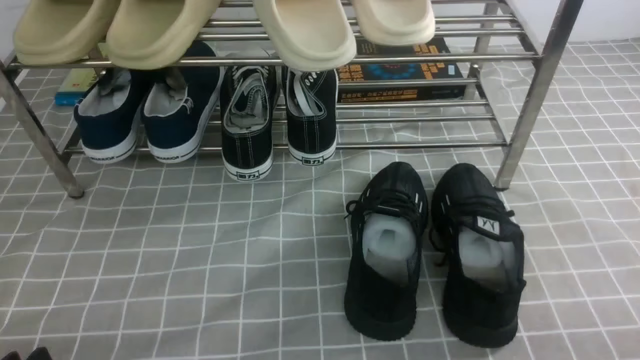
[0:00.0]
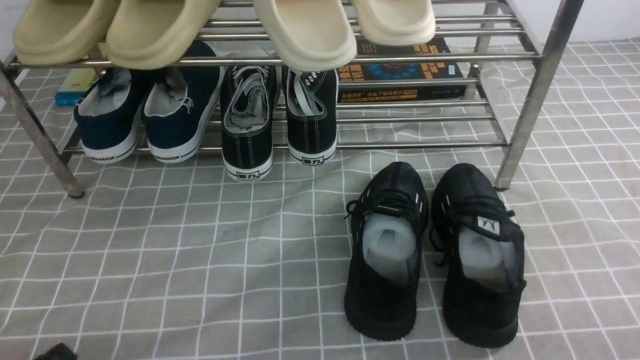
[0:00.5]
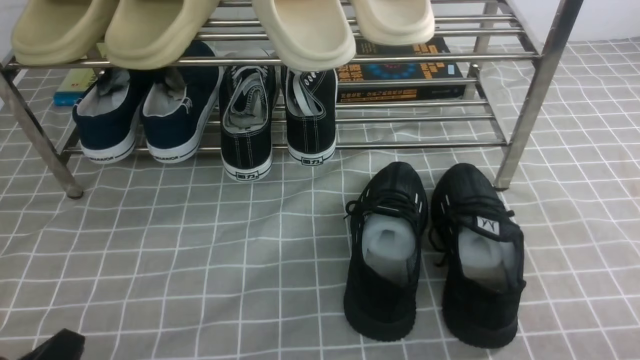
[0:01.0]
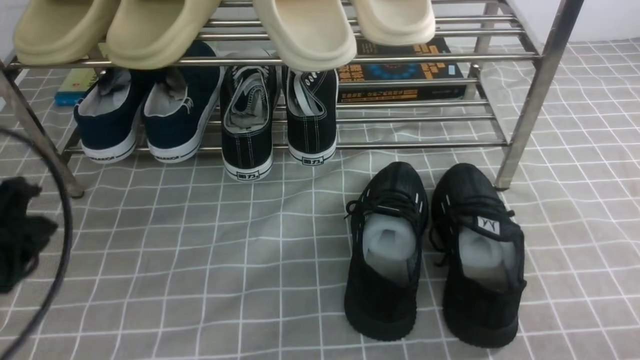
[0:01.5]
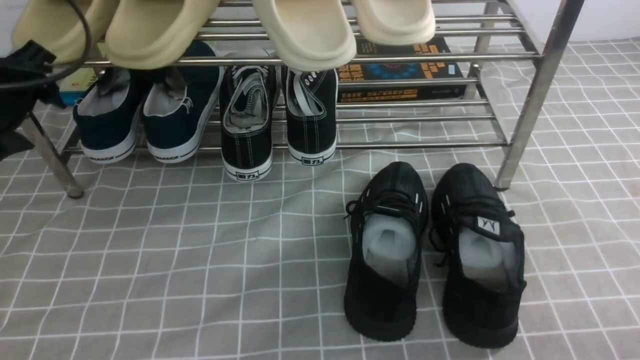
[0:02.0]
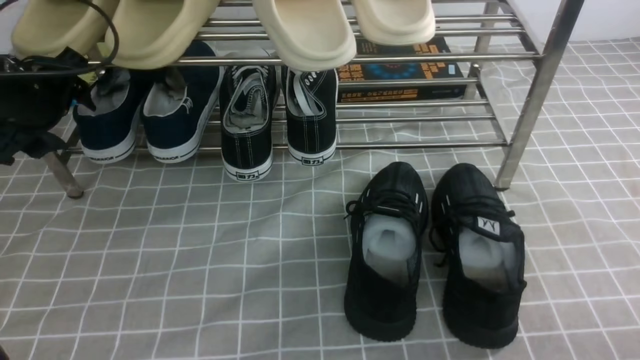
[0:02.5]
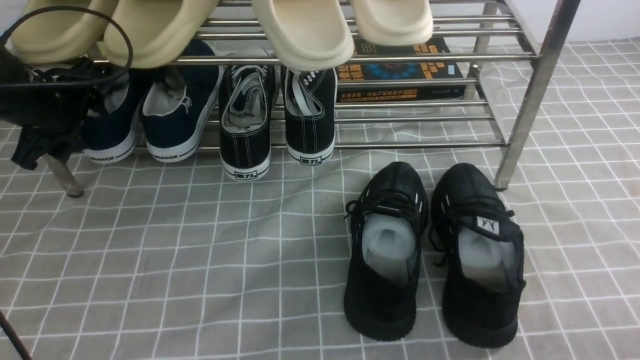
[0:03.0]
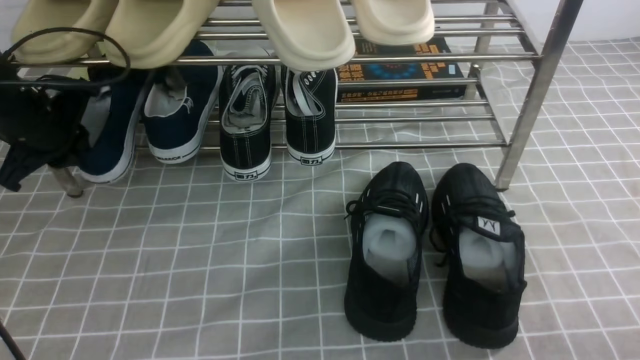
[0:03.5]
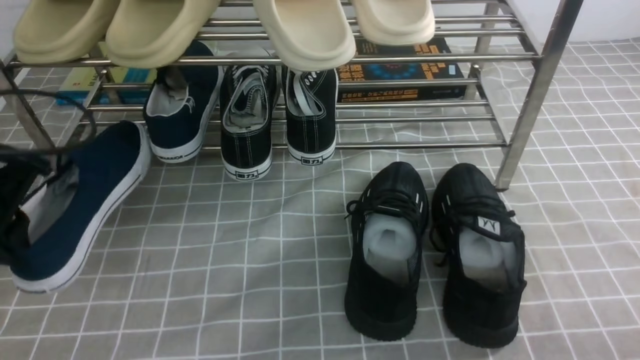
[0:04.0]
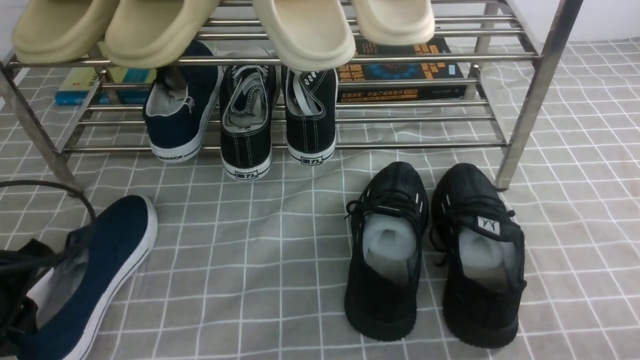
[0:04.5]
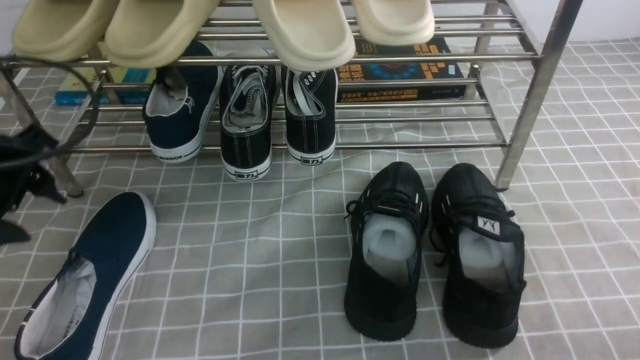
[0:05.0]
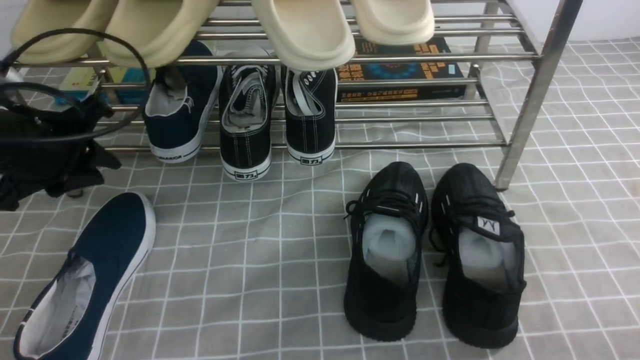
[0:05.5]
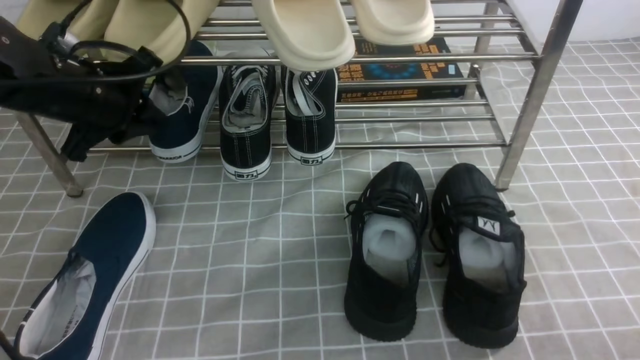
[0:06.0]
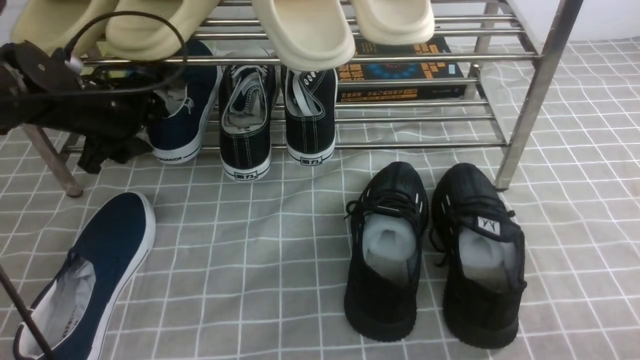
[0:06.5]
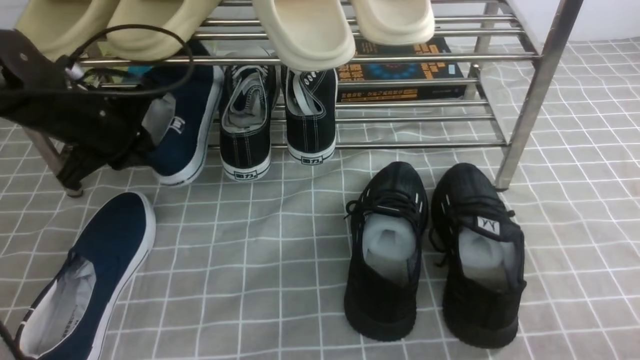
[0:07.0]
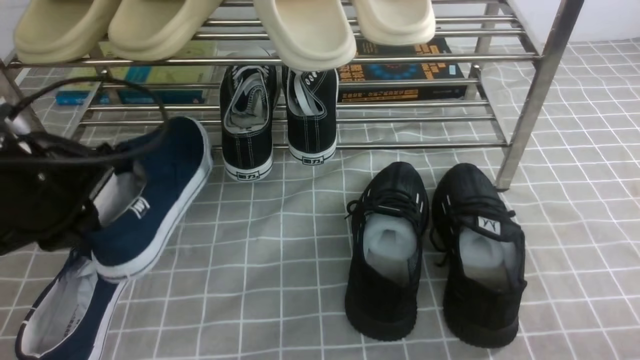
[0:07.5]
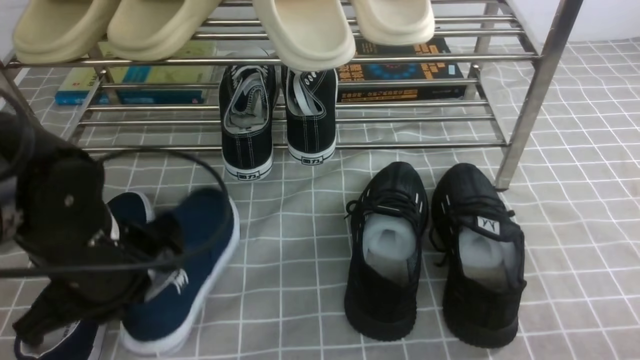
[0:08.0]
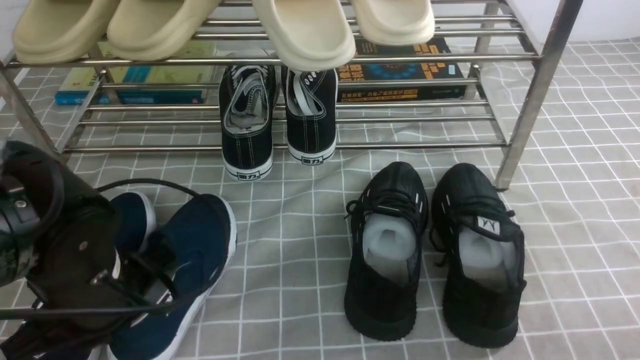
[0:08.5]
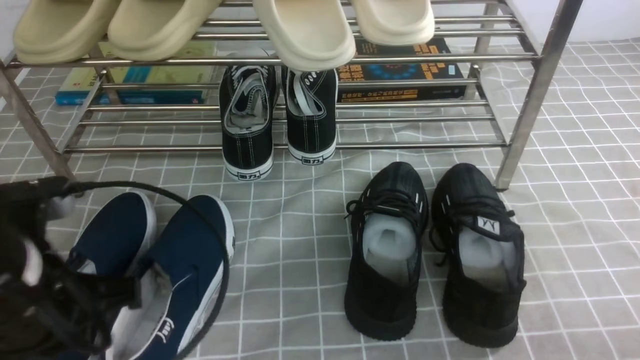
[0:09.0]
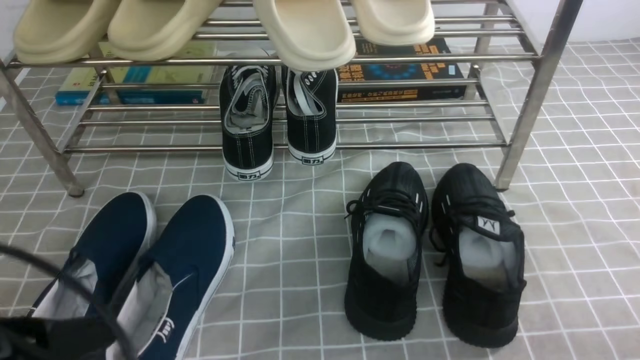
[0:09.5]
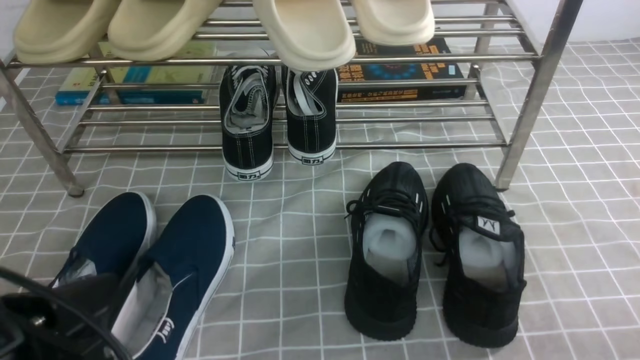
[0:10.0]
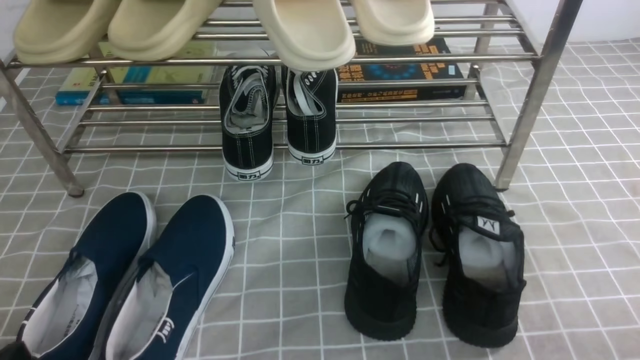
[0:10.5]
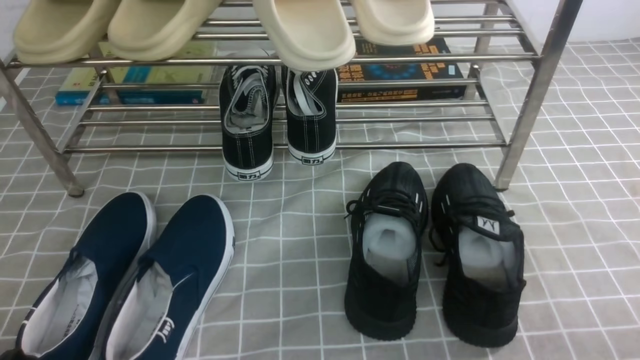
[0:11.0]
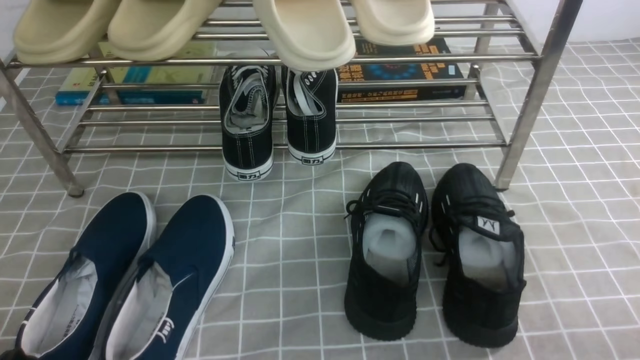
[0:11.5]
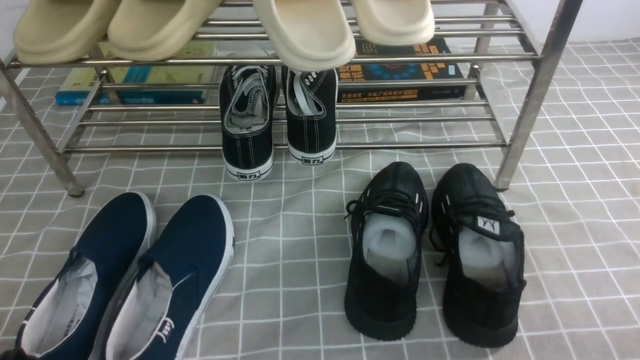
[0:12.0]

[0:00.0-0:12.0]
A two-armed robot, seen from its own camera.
Step, 0:00.0 to 0:03.0: use the left arm to clamp a shoe on the left side of the shoe rack.
Step, 0:03.5 to 0:04.5: Use your left arm to remove the clamped shoe from the shoe rack and put it down.
Step, 0:05.0 to 0:07.0: use the left arm to clamp a shoe on the left side of the shoe rack.
Step, 0:07.5 to 0:08.5: Use your left arm to remove the clamped shoe from the shoe rack and put it down.
0:00.0 to 0:02.0: The left gripper is displaced forward and upward by some 30 cm, and opens up.
0:02.0 to 0:04.0: The left gripper shifts approximately 10 cm backward, and closes its fingers.
0:04.0 to 0:06.0: The left gripper travels forward and to the right by about 15 cm, and opens and closes again.
0:06.0 to 0:08.0: The left gripper goes approximately 15 cm backward.
0:08.0 to 0:10.0: The left gripper heads backward, covering approximately 15 cm.
0:10.0 to 0:12.0: The left gripper shifts about 10 cm downward.

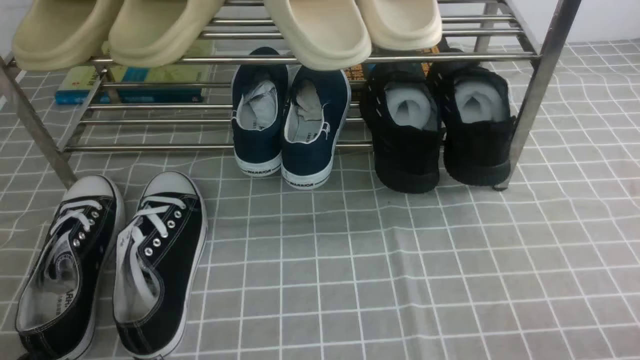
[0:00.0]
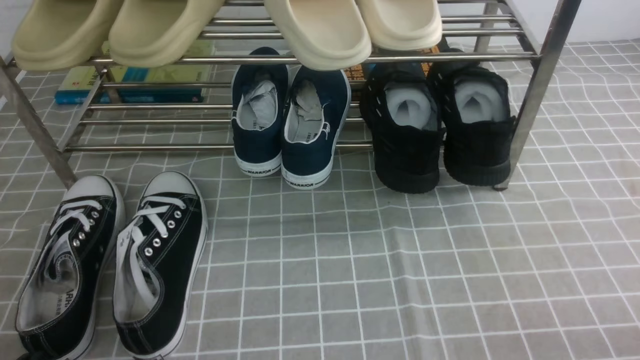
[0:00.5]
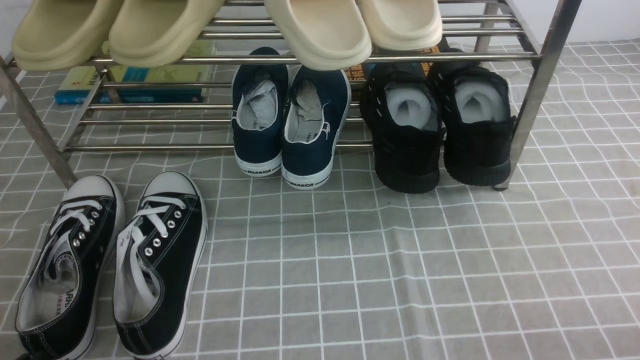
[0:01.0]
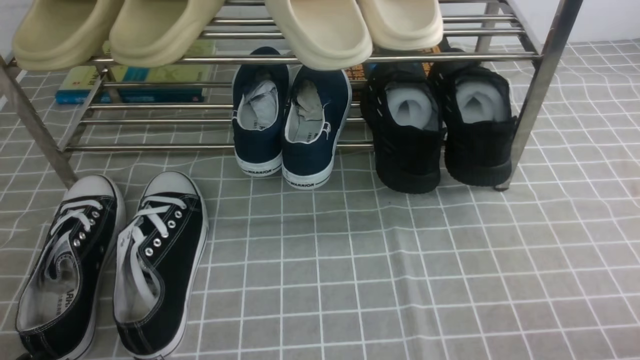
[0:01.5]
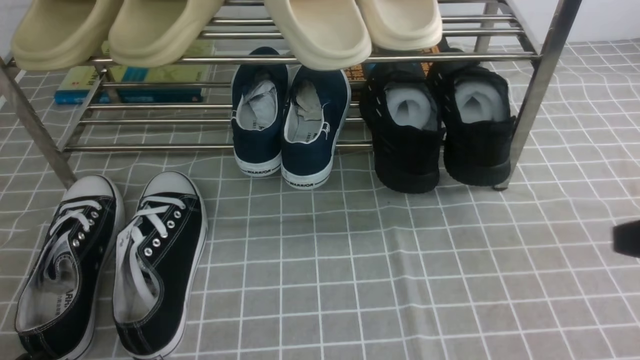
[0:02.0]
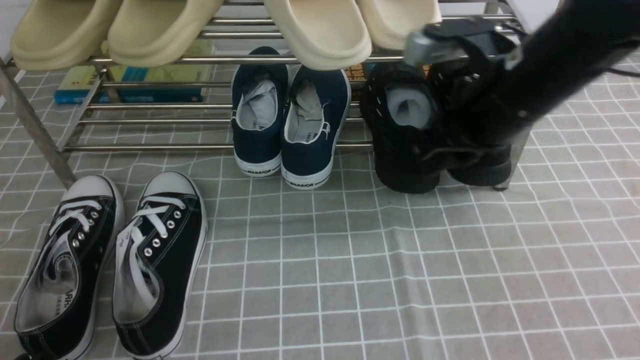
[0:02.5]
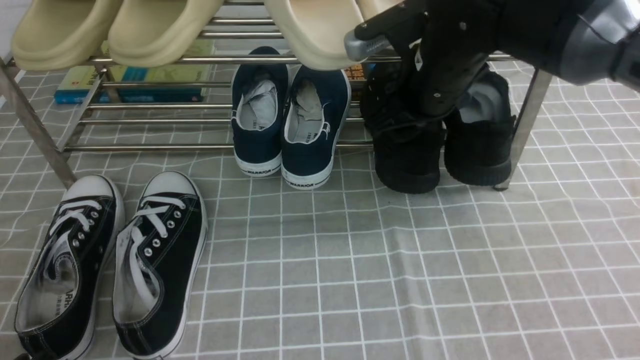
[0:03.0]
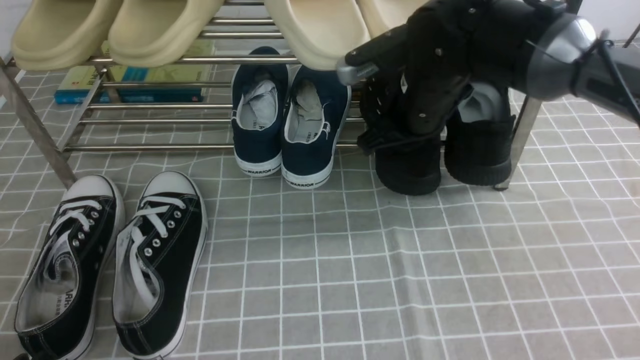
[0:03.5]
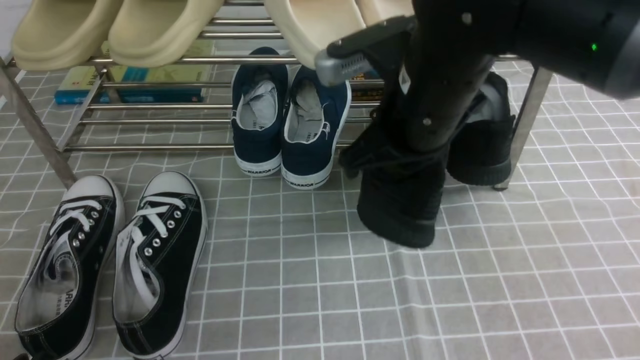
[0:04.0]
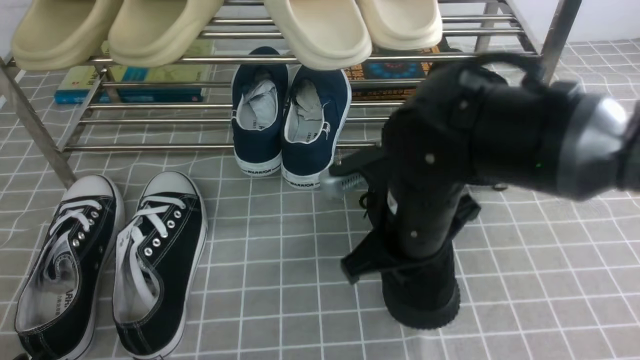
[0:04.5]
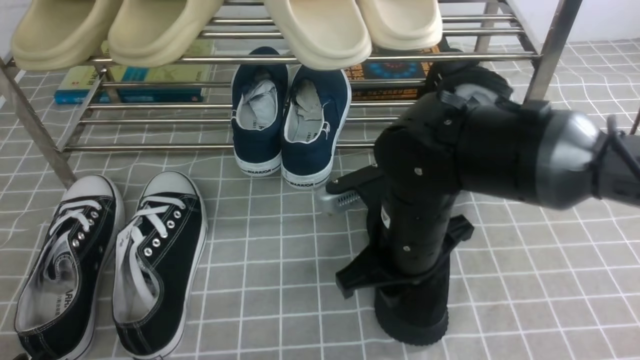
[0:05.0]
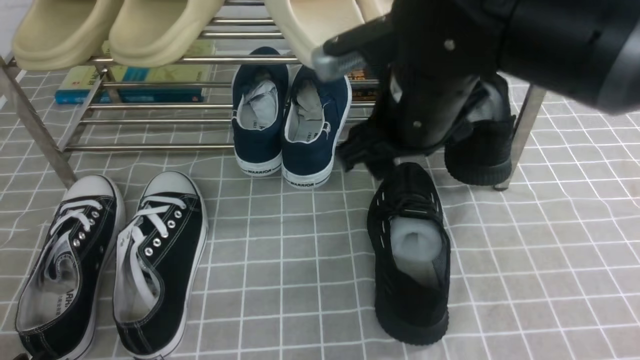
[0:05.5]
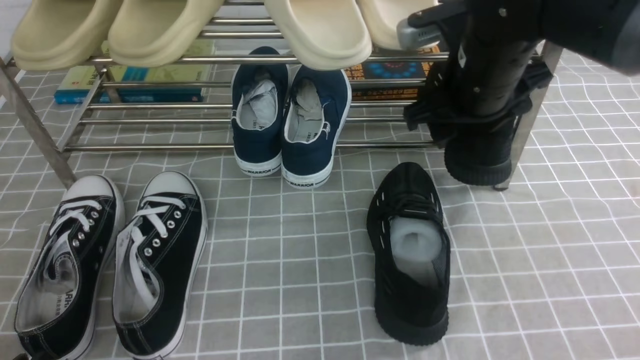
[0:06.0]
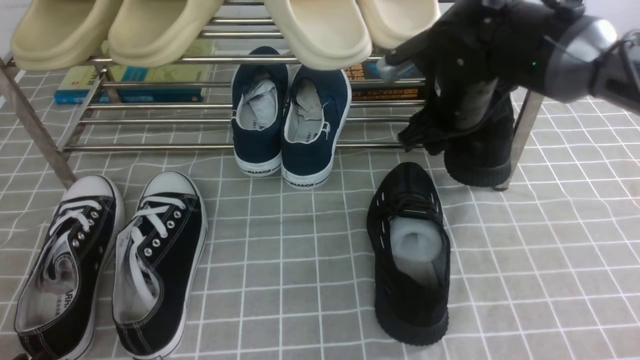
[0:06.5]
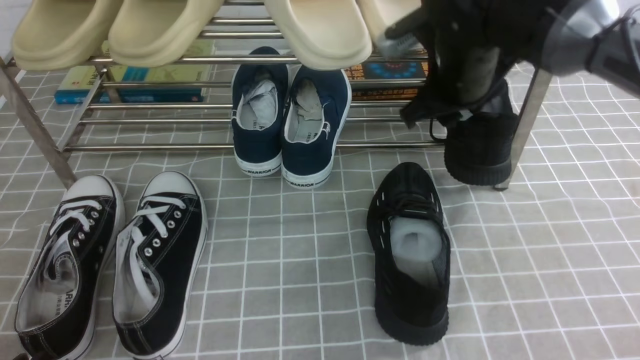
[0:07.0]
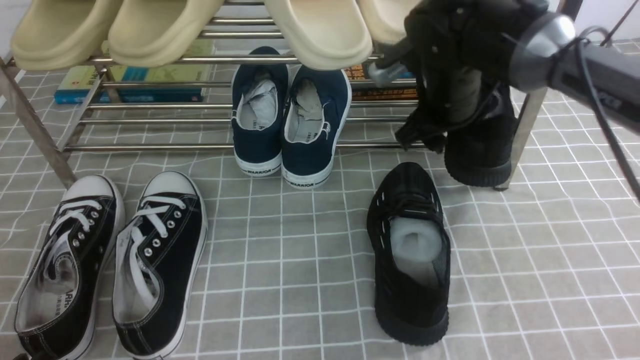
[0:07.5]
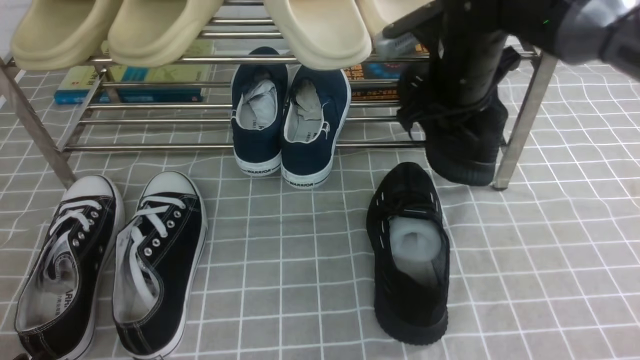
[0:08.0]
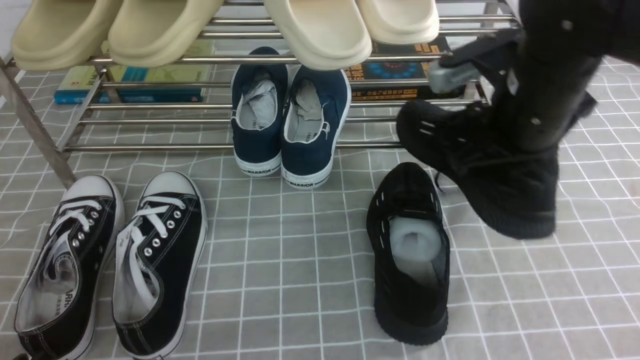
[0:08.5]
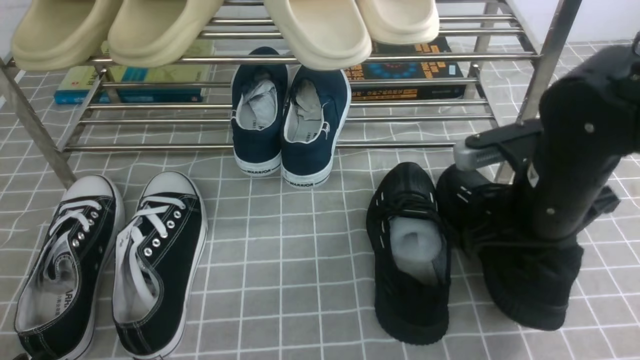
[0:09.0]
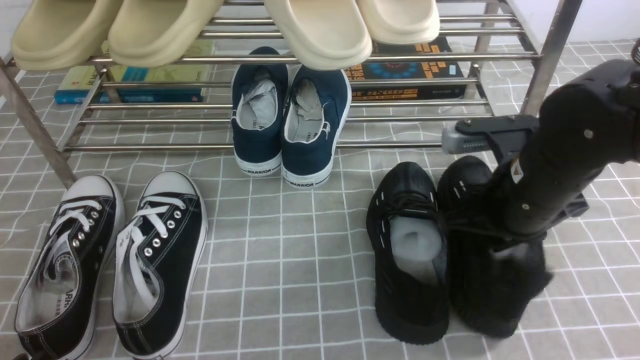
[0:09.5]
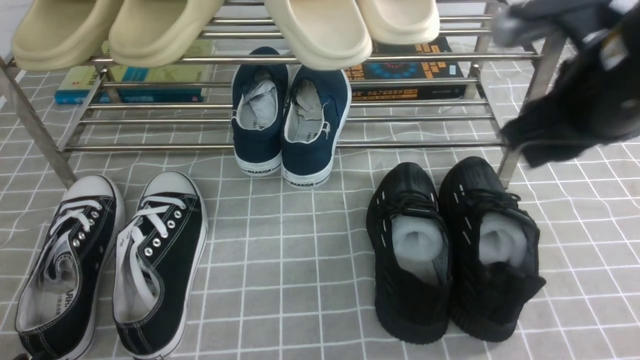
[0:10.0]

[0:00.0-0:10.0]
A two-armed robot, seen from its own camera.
Step, 0:00.0 to 0:03.0: use the right arm to clamp a shoe on the right side of the shoe rack.
Step, 0:03.5 to 0:05.0: use the right arm to take out the clamped shoe from the shoe rack and put it down.
Step, 0:05.5 to 0:07.5: use the right arm to clamp a shoe on the right side of the shoe rack.
Step, 0:08.0 to 0:09.5: use the right arm to take out the clamped shoe from the shoe rack and put it down.
0:02.0 to 0:04.0: The right gripper goes roughly 25 cm to the left and forward, and opens, then closes again.
0:04.0 to 0:06.0: The right gripper shifts roughly 10 cm forward and to the right, and opens its fingers.
0:06.0 to 0:08.0: The right gripper closes up.
0:08.0 to 0:10.0: The right gripper is displaced backward, upward and to the right by about 20 cm, and opens up.
